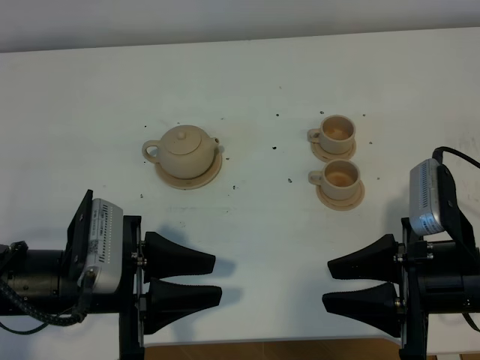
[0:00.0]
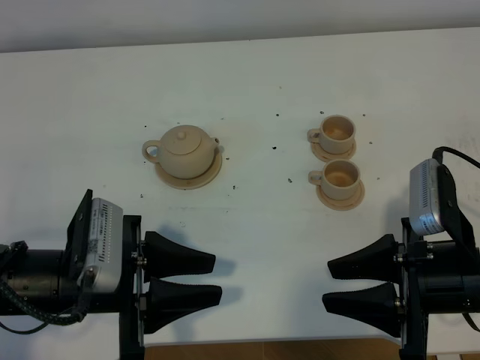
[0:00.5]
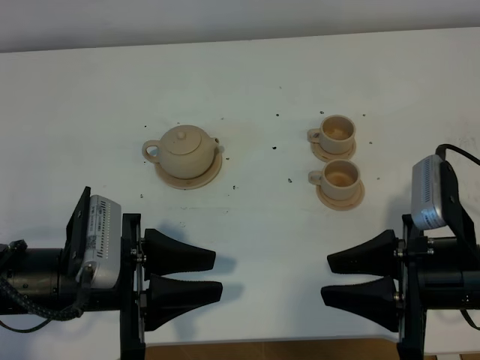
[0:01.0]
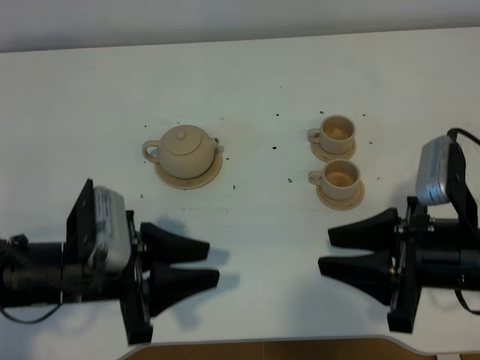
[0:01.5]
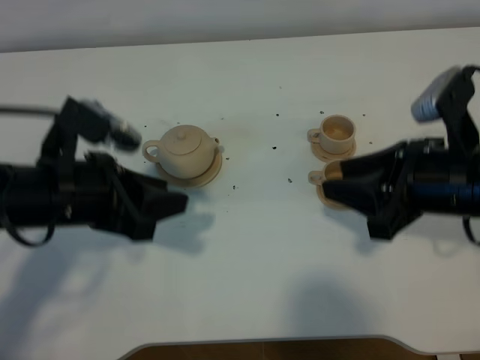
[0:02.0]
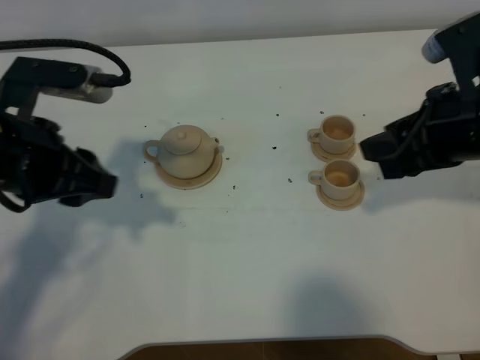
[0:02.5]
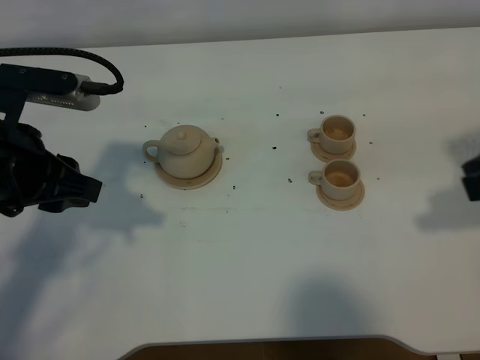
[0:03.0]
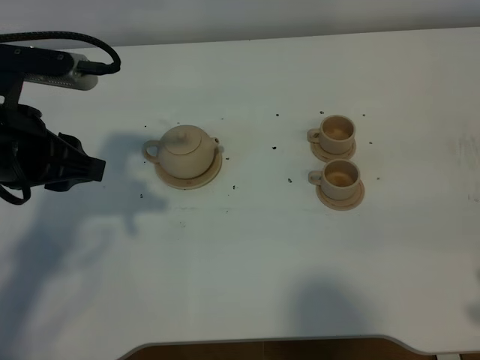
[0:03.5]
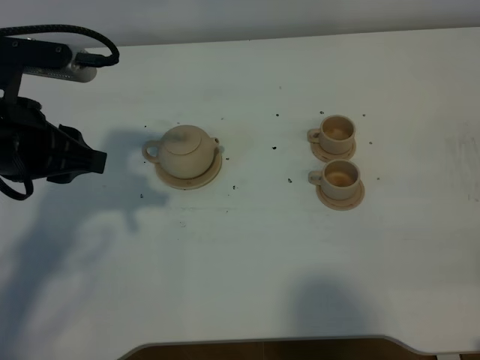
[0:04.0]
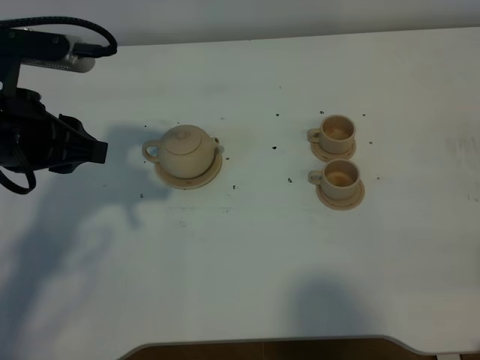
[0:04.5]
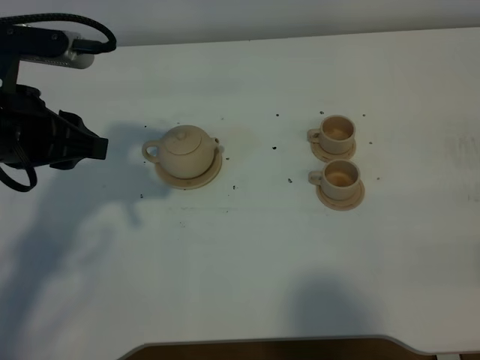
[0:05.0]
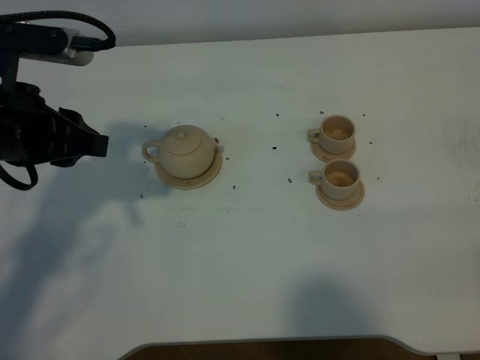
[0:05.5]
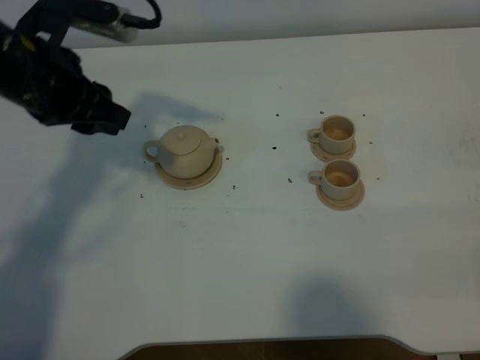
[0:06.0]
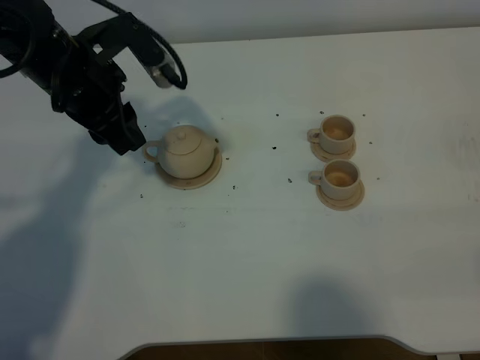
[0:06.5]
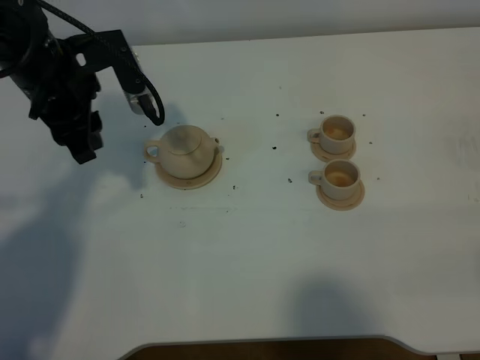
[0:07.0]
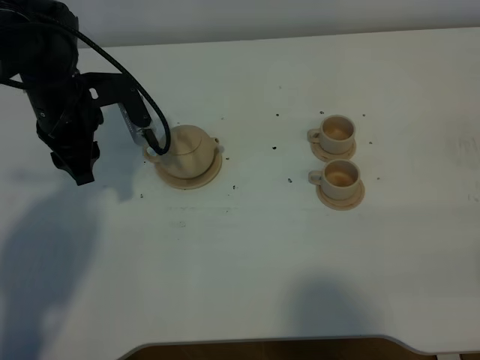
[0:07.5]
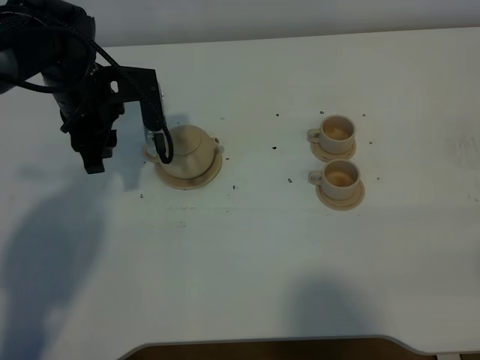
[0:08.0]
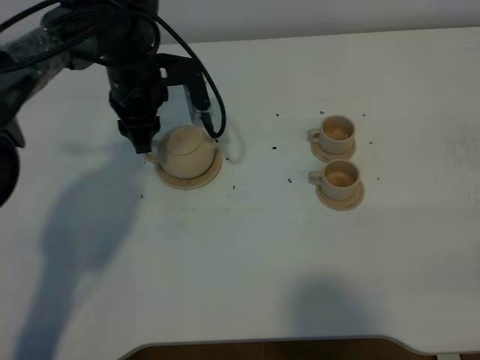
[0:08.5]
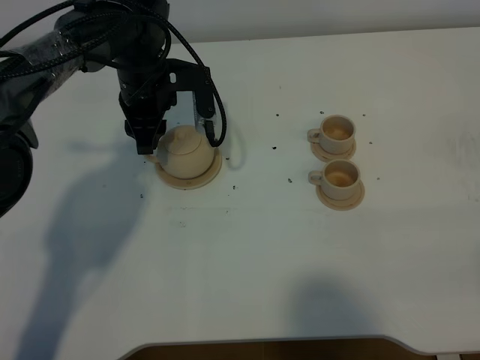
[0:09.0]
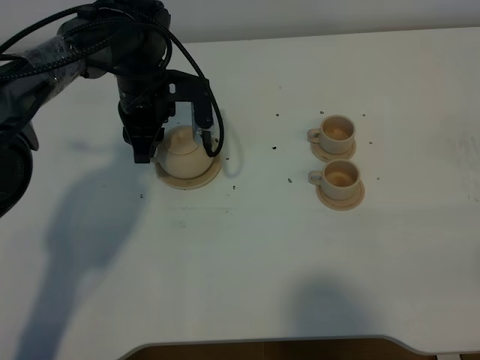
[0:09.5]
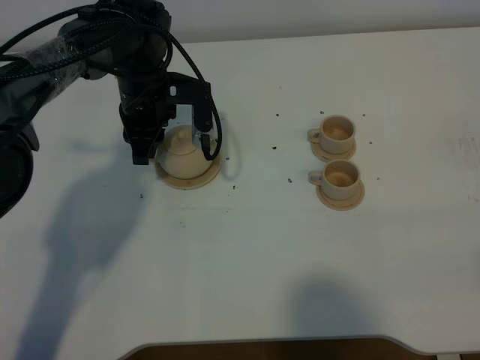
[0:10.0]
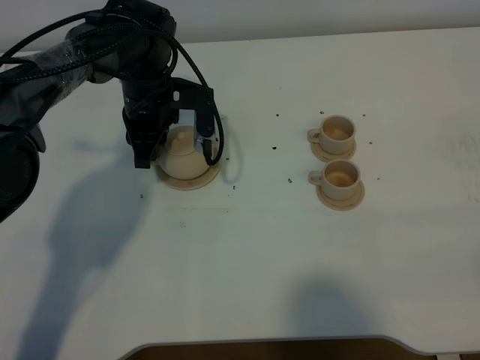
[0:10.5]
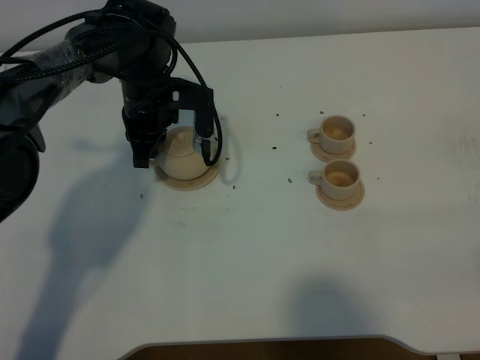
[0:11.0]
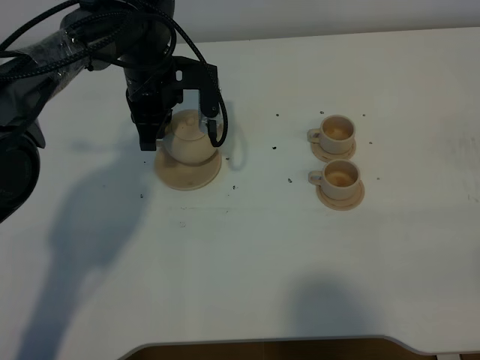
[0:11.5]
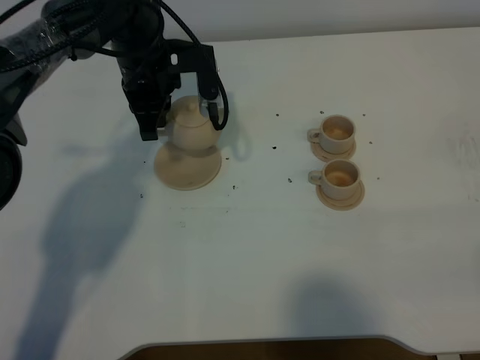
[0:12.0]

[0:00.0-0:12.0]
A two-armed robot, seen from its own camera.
Task of the whole recording: grasp the brown teapot and pour the tea into the two brown teacups one by one, put the brown teapot back in its original place.
Step, 0.0 to 11.5 s: Pick up the teapot with the left gripper.
0.0 to 2.0 s: Both grippers move forward and upward, roughly 10 cm.
2.0 to 4.0 s: The left gripper moves upward, some 5 cm; the right gripper is displaced backward and to the right by approximately 20 cm.
4.0 to 6.0 s: The left gripper heads forward, covering roughly 10 cm.
6.0 to 8.0 s: The left gripper travels downward and forward by about 10 cm.
8.0 to 10.0 s: The left gripper is displaced to the right by about 5 cm.
10.0 to 12.0 s: The left gripper closes.

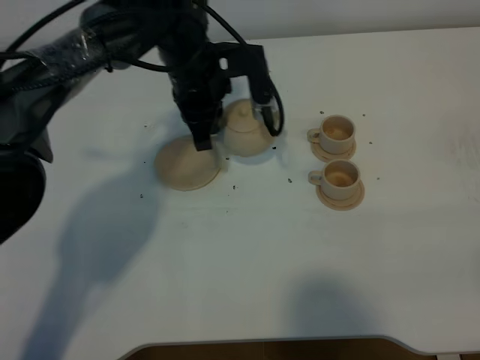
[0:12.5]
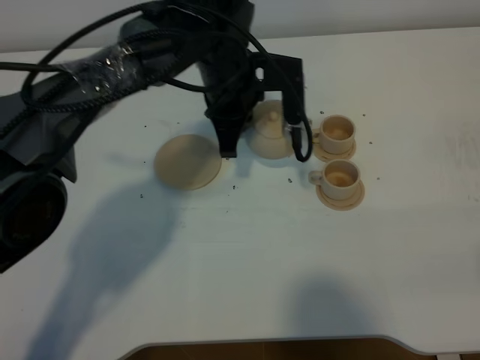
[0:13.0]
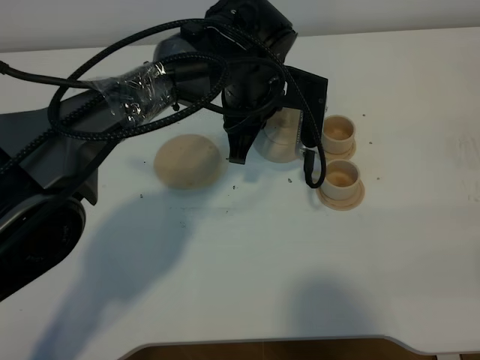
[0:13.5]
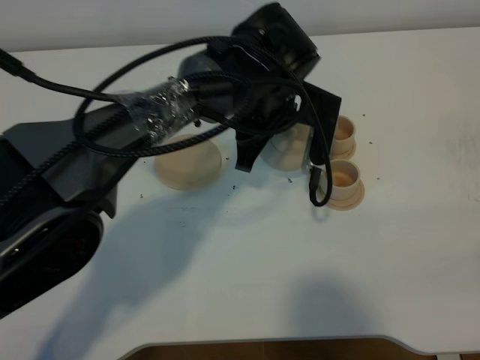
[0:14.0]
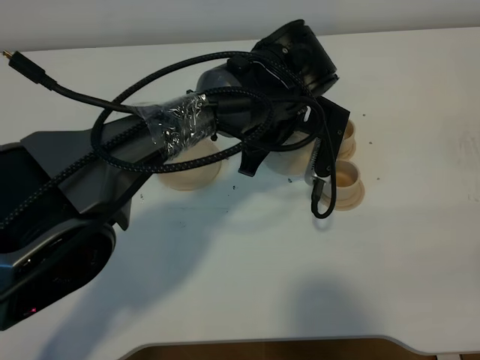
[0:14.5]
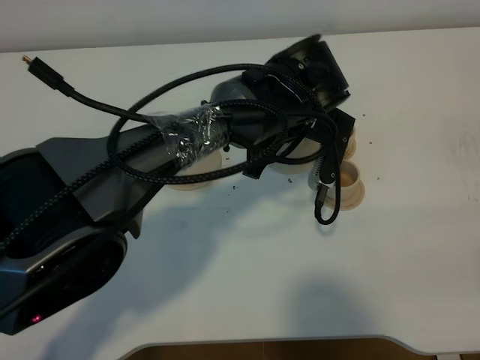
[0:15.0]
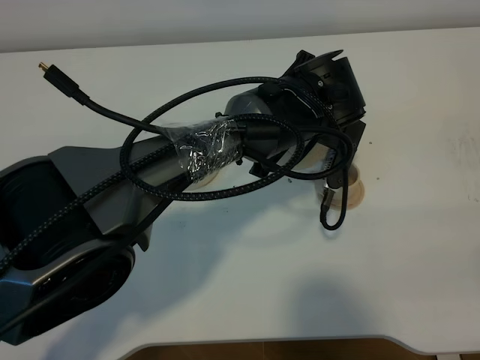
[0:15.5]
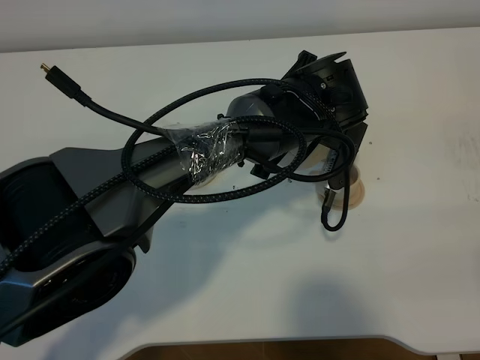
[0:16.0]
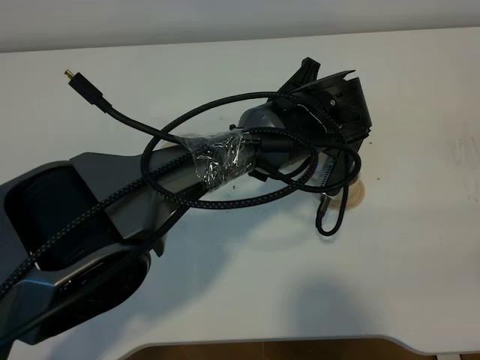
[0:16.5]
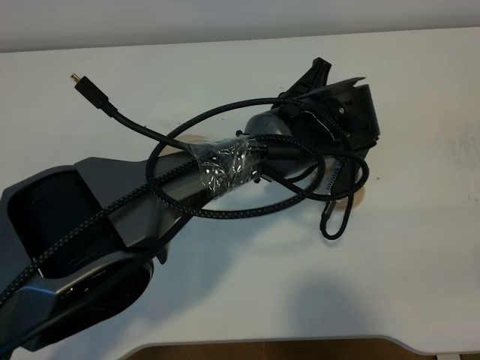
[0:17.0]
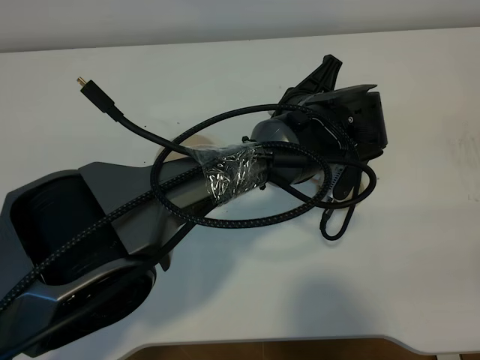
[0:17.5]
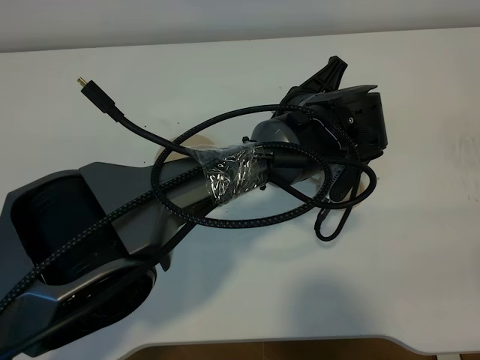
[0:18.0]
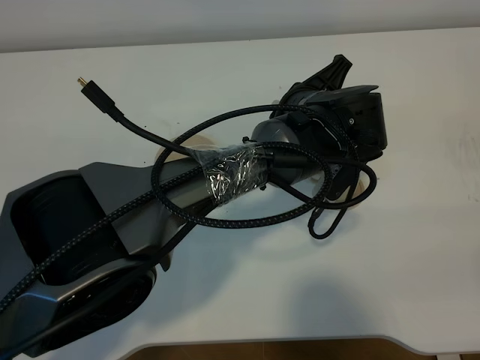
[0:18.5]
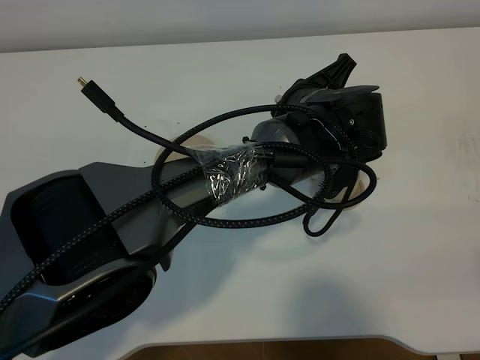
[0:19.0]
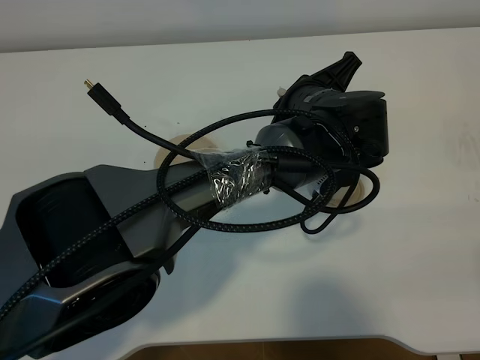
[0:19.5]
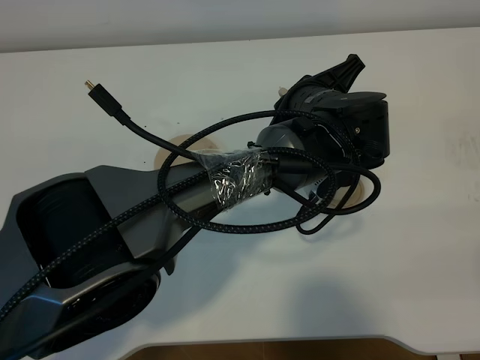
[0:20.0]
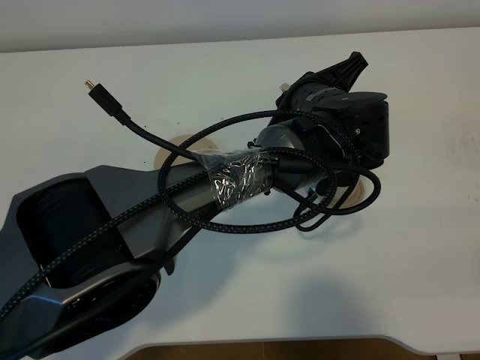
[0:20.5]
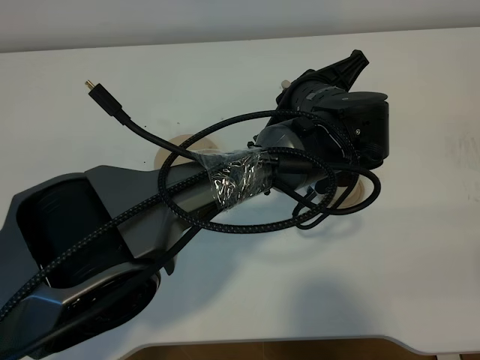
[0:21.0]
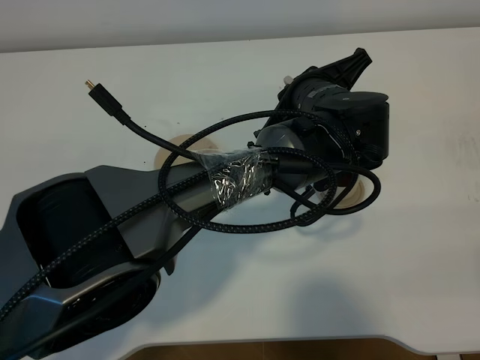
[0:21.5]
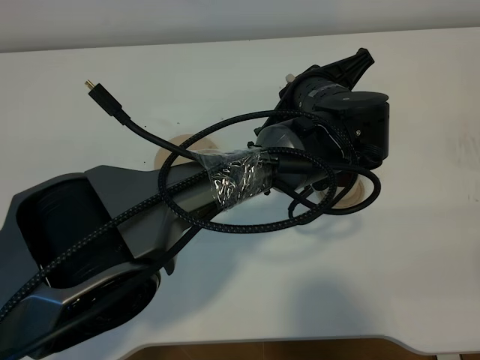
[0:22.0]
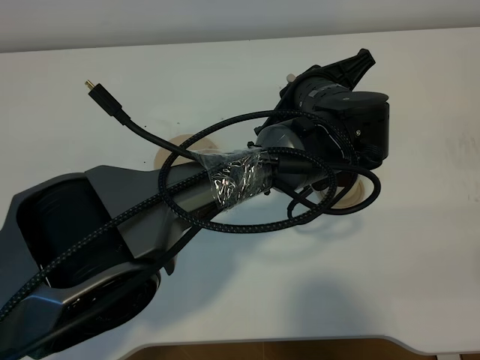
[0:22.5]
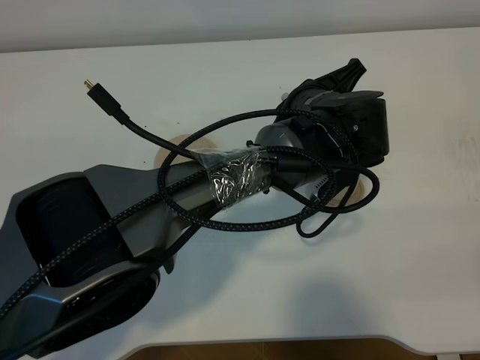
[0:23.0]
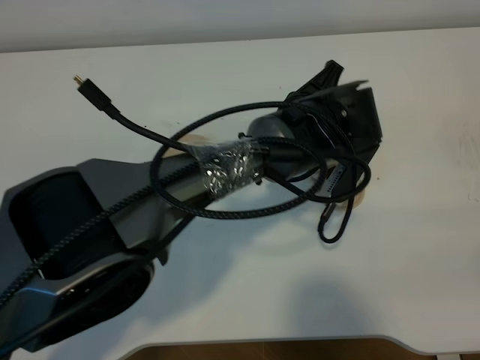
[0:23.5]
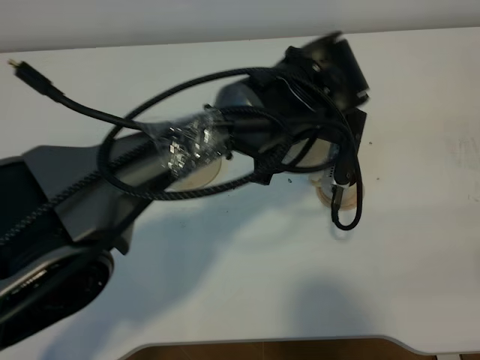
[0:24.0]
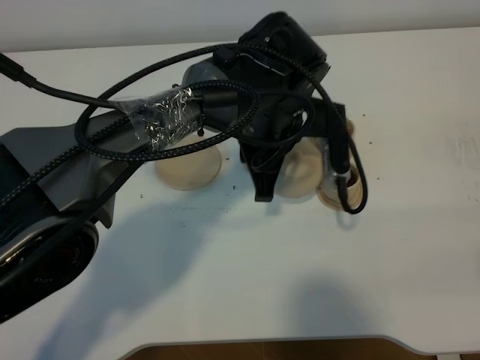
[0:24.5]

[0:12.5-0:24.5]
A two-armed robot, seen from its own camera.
Task of the whole recording: grasp the brown teapot and pour the tea into the two brown teacups one by one, put the brown teapot back in its original place.
12.5 to 14.5 s: The left gripper travels to the right and backward by approximately 10 cm.
16.5 to 18.5 s: The grippers move only a little.
18.5 to 22.5 s: There are only small adjustments of the grippers.
22.5 to 24.5 s: The left gripper shifts approximately 5 cm to the left.

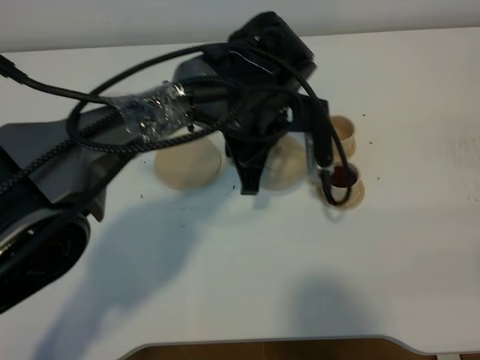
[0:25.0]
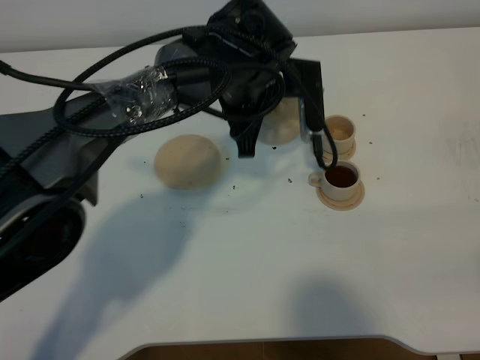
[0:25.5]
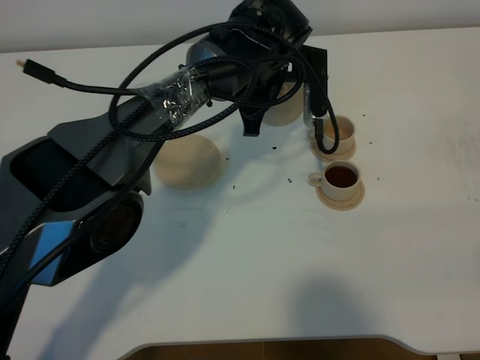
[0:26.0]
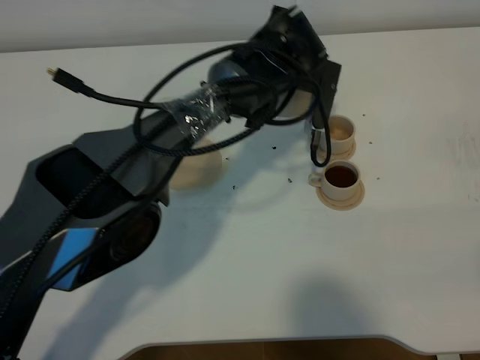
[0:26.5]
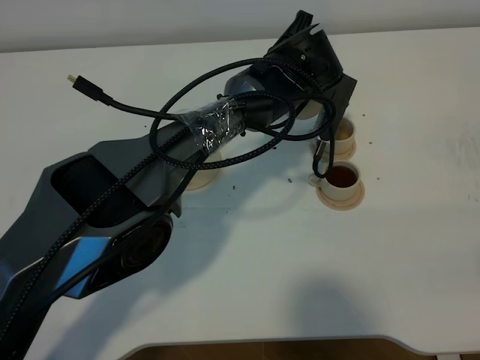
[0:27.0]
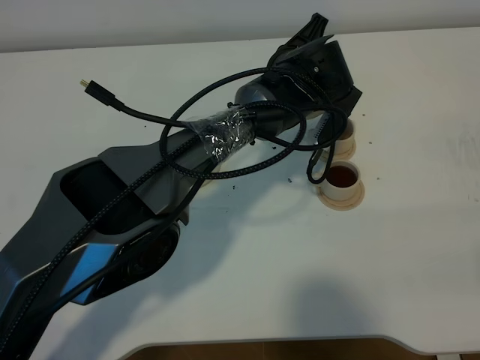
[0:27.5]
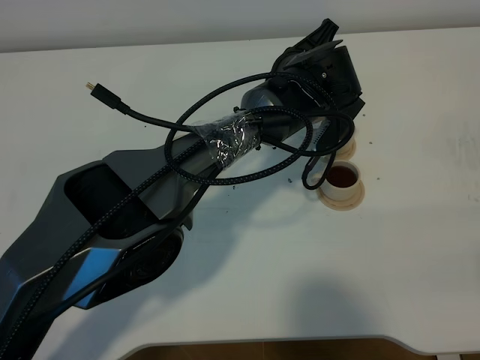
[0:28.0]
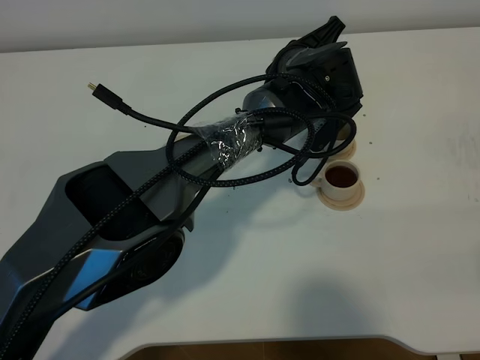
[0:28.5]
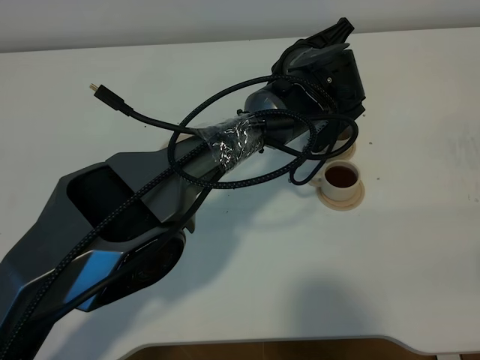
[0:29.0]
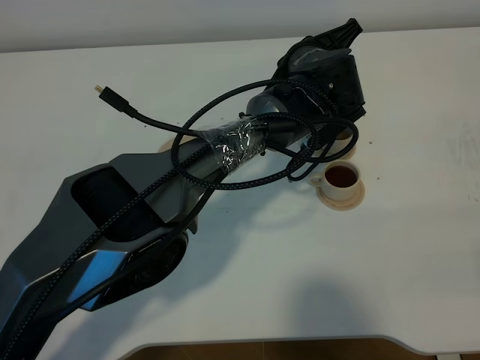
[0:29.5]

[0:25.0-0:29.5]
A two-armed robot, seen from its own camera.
Task of the whole recording: grasp the brown teapot and pour the tea into the two brown teacups one by one, put the brown teapot back in its original place.
25.0 to 27.0 s: The left gripper travels forward and to the right by about 10 cm.
